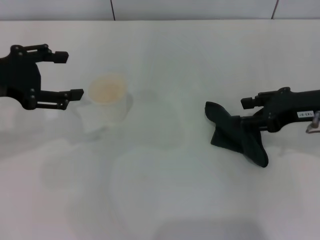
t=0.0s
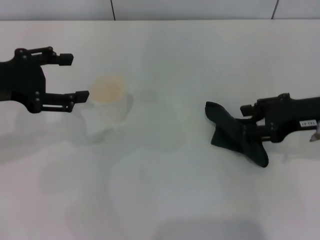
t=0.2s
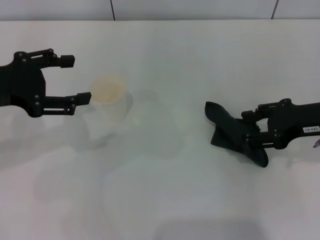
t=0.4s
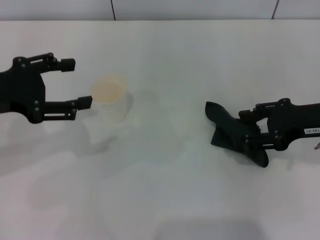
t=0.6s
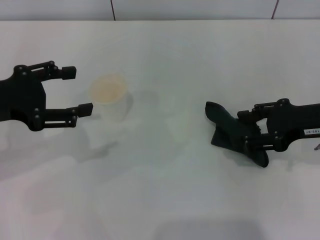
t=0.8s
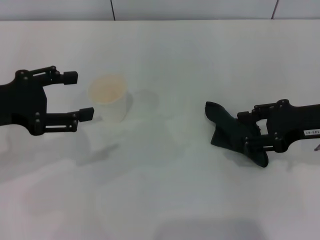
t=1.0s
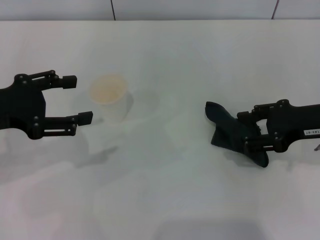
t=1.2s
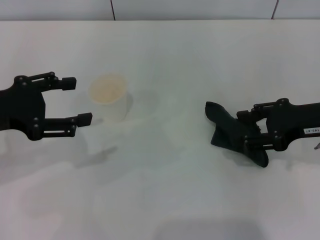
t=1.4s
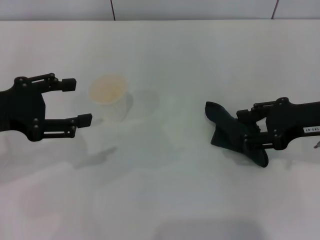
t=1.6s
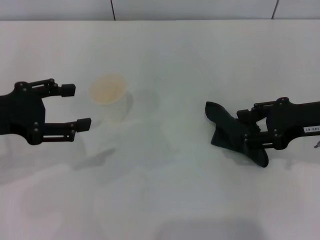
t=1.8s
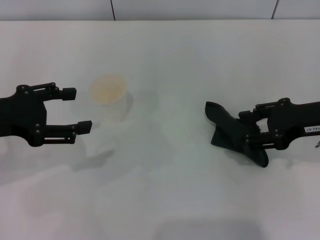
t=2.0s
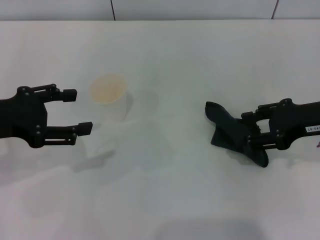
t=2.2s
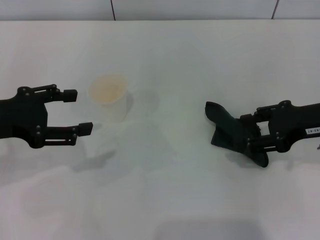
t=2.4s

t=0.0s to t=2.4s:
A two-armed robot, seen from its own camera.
t=0.0s to t=2.4s: The grippers stay close to where they were, moving slightly.

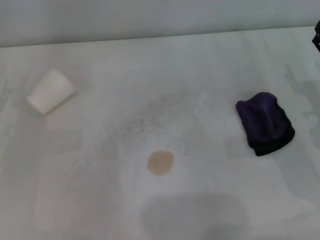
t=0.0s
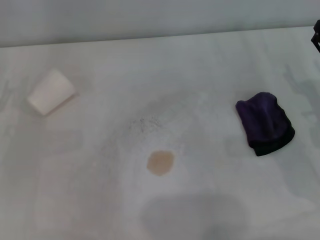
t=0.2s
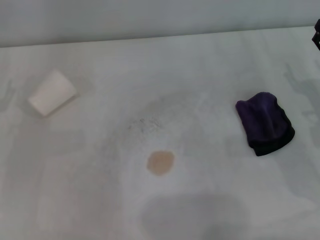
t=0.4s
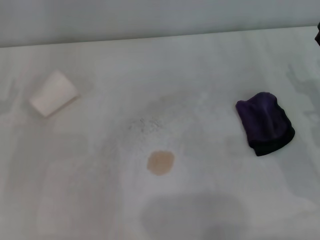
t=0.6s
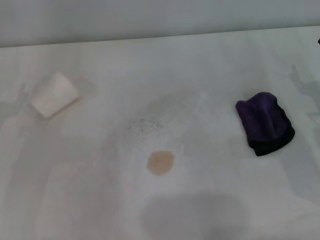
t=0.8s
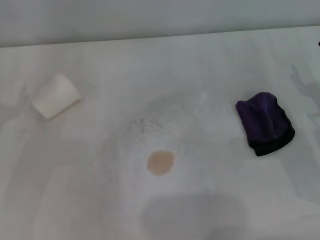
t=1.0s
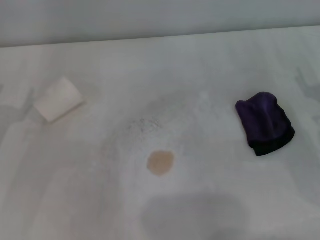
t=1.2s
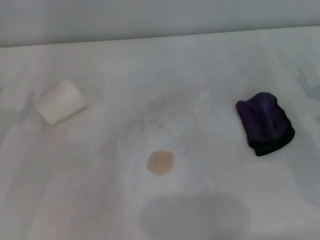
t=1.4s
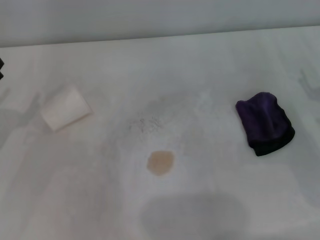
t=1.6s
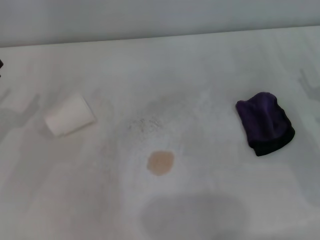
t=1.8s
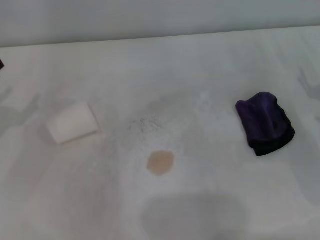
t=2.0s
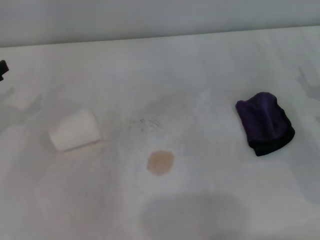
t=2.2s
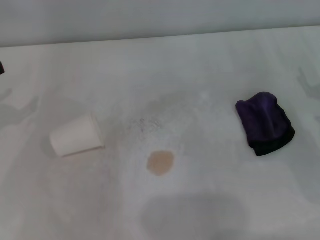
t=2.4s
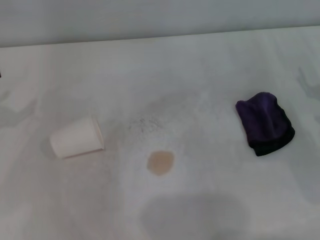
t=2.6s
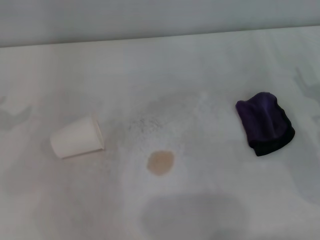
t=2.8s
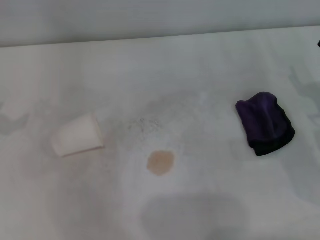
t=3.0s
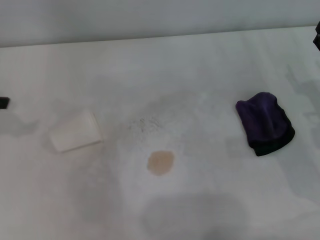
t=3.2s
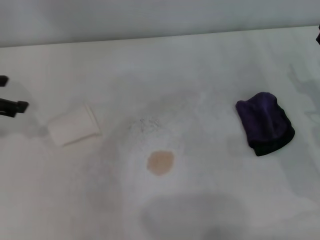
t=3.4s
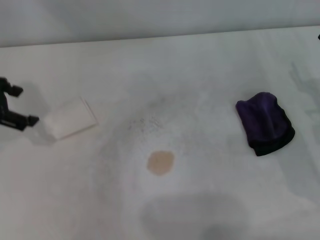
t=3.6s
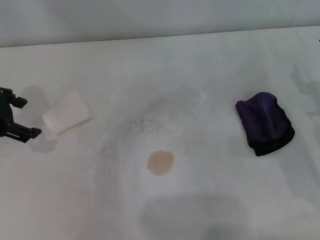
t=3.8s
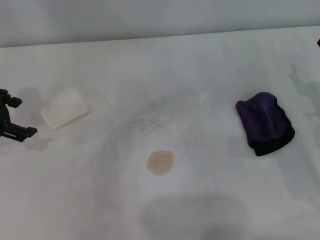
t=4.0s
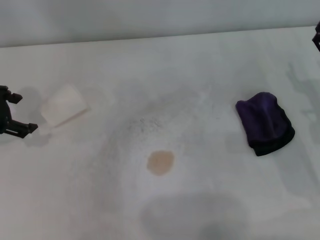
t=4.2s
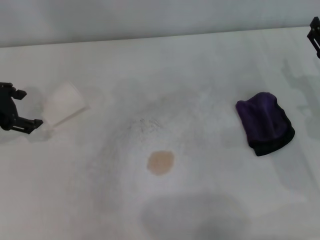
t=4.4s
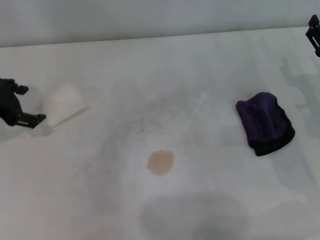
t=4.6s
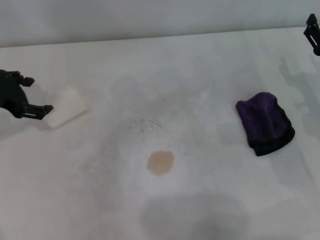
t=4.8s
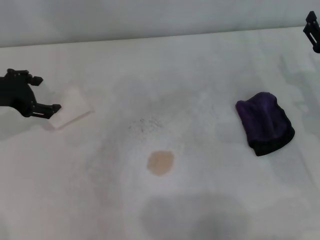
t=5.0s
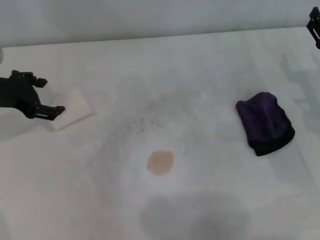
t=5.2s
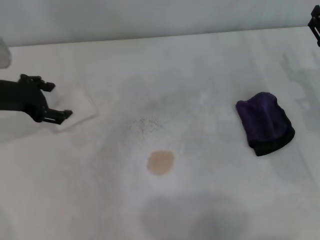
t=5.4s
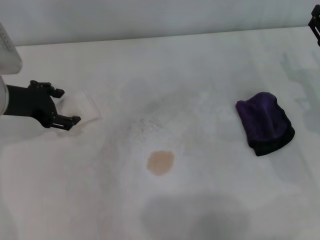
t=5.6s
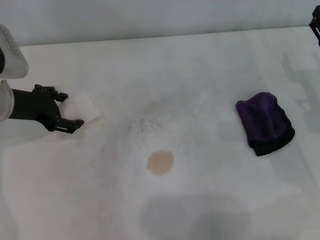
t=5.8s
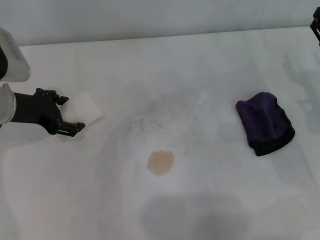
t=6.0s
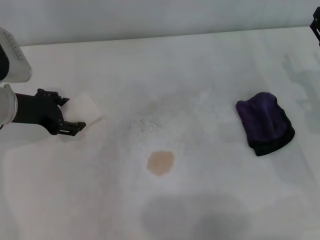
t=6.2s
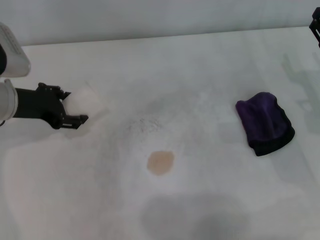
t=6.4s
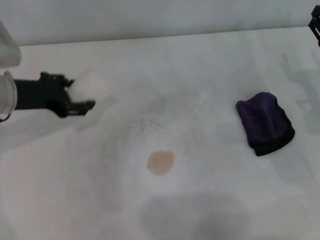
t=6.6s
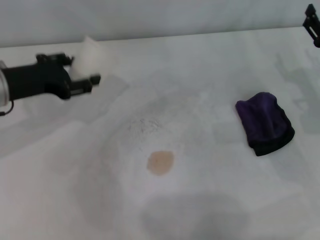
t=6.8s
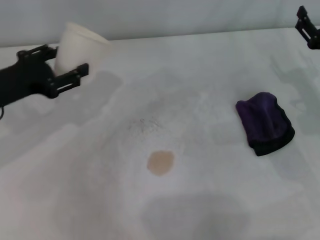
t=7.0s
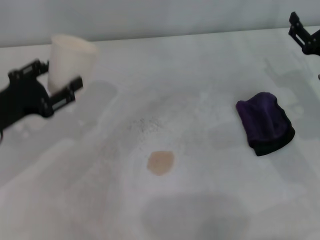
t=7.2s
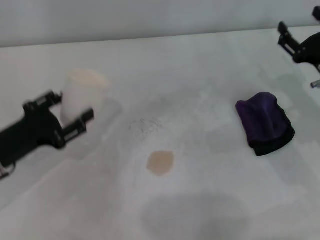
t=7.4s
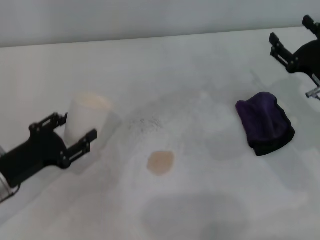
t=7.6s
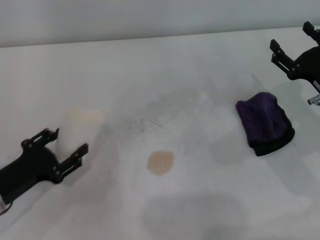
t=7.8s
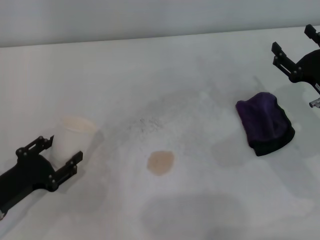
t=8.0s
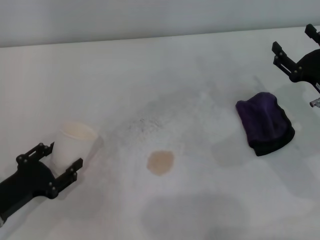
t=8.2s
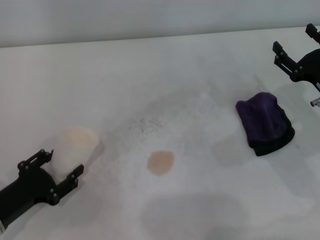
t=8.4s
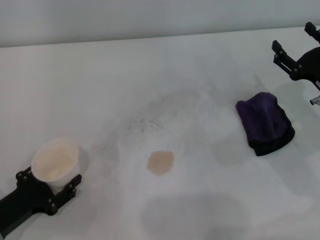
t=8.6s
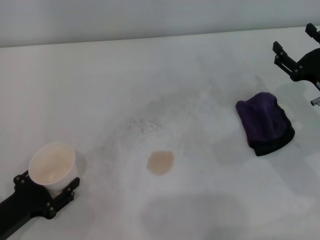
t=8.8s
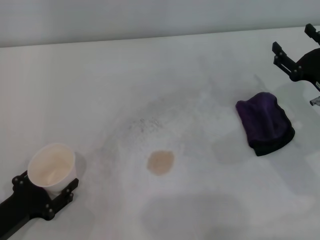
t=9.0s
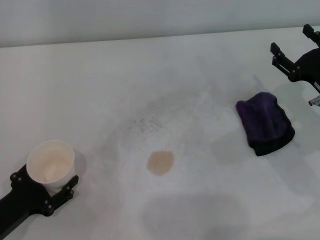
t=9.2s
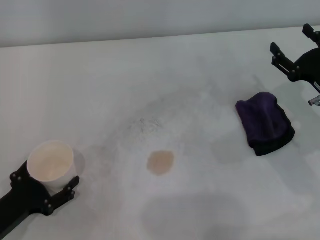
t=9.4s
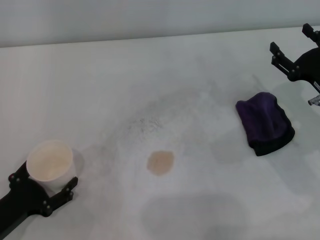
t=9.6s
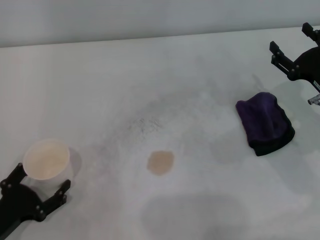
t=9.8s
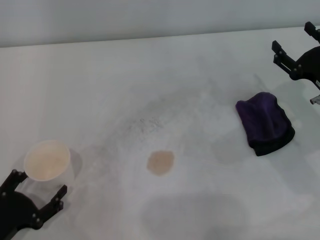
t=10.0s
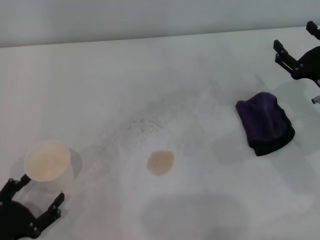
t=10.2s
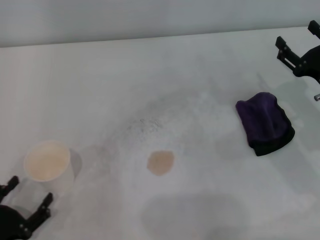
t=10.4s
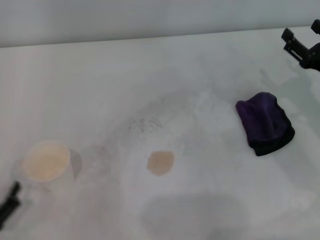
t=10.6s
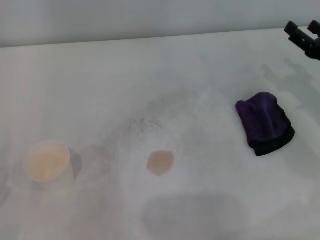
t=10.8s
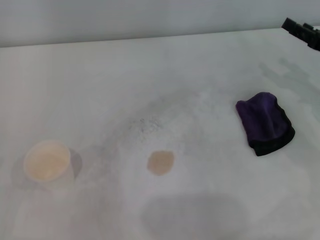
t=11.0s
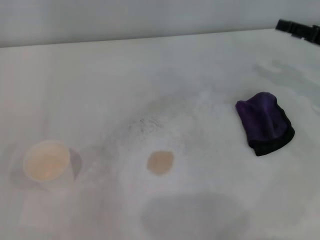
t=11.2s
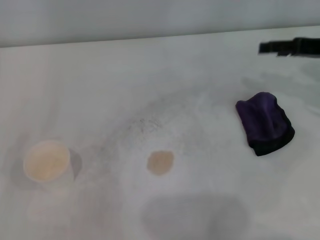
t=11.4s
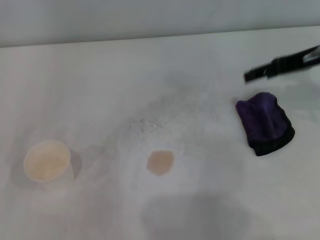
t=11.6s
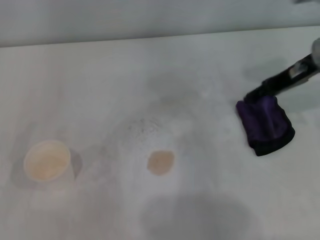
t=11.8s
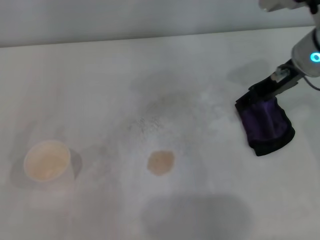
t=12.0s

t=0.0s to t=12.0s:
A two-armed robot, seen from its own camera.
Step, t=0.0s to t=6.0s: Grasp the paper cup with the left gripper.
Step, t=6.2s to t=9.4s: Stand the paper cup upright with the left gripper.
t=3.0s to t=4.4s: The left gripper shifts about 10 cm to the right.
t=4.4s to t=6.0s: The left gripper ends up approximately 5 cm from where it was.
t=6.0s to t=7.6s: The left gripper goes some 15 cm backward and downward, and closes.
t=7.6s to t=9.0s: The left gripper shifts approximately 5 cm backward.
t=9.0s to t=10.4s: The left gripper moves backward, about 5 cm, and opens up.
t=10.4s to t=12.0s: The right gripper goes roughly 15 cm upward, to the left and forward; the left gripper shifts some 10 cm upward, to the left and forward.

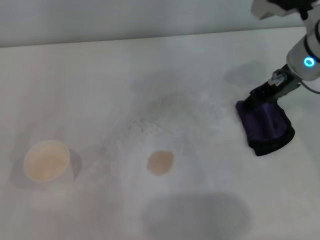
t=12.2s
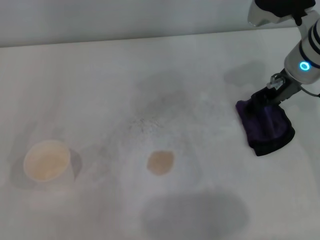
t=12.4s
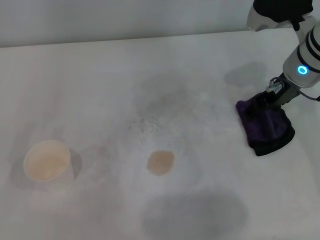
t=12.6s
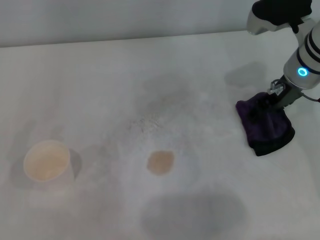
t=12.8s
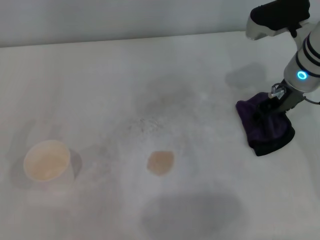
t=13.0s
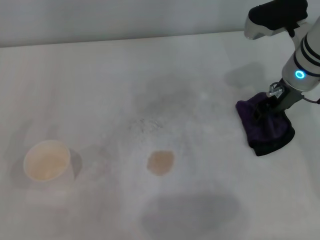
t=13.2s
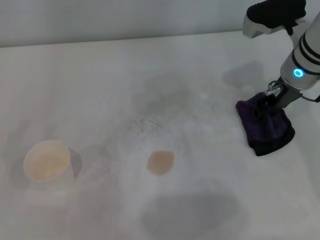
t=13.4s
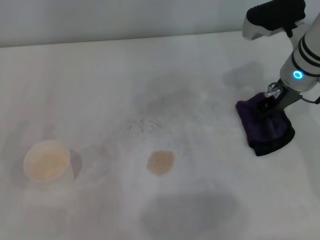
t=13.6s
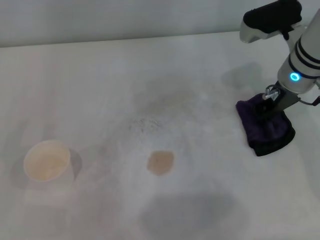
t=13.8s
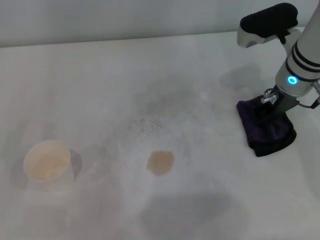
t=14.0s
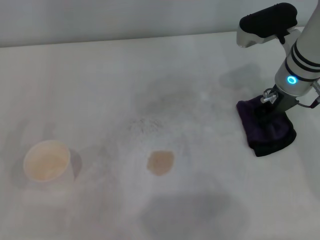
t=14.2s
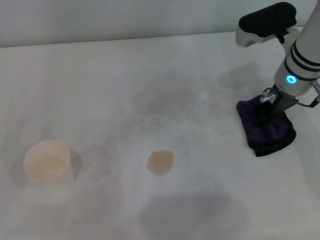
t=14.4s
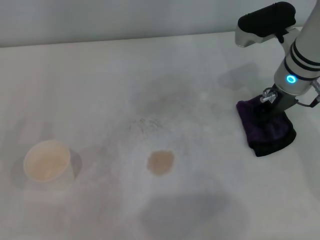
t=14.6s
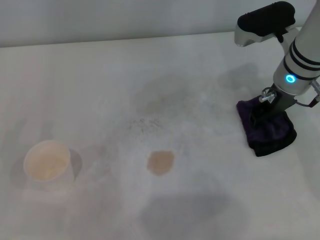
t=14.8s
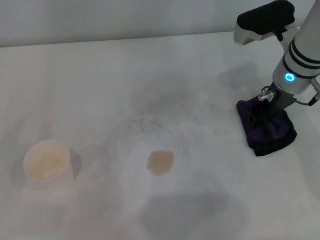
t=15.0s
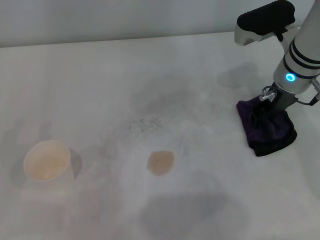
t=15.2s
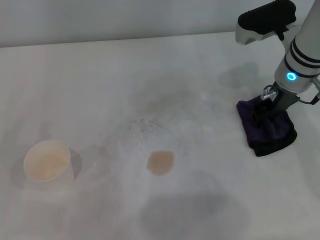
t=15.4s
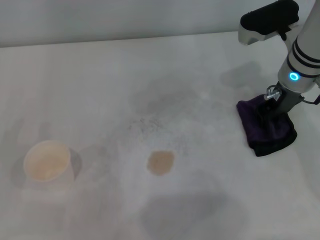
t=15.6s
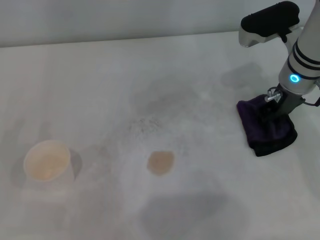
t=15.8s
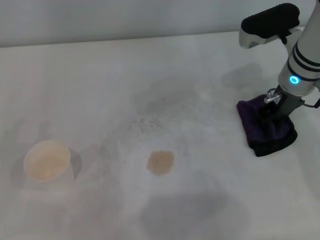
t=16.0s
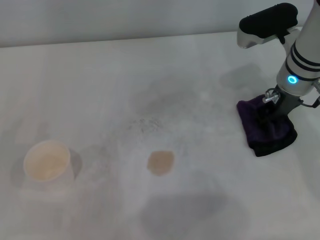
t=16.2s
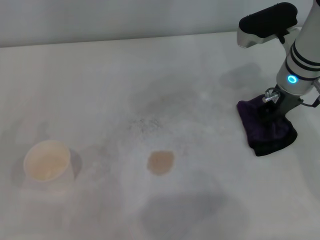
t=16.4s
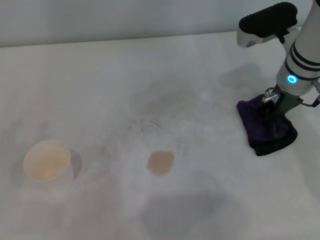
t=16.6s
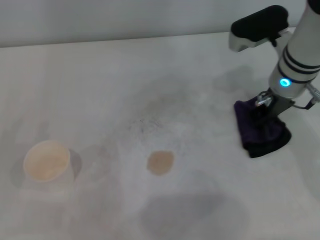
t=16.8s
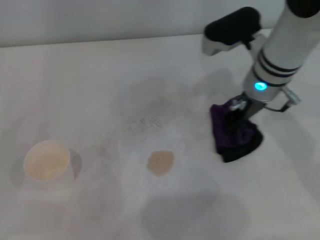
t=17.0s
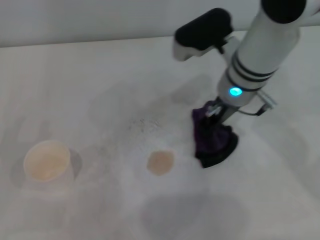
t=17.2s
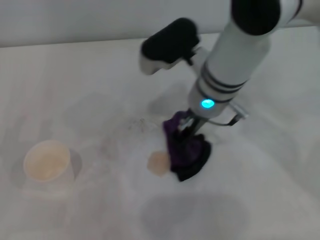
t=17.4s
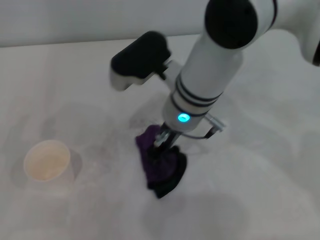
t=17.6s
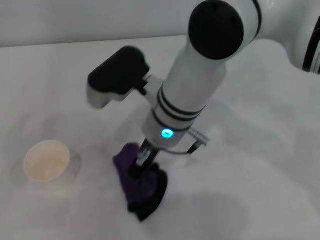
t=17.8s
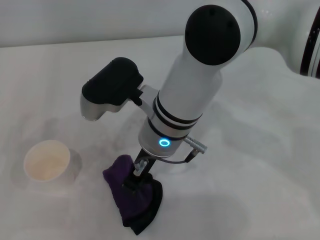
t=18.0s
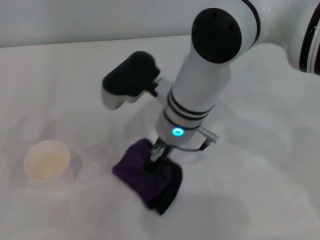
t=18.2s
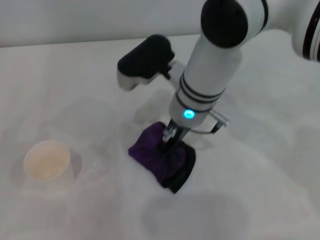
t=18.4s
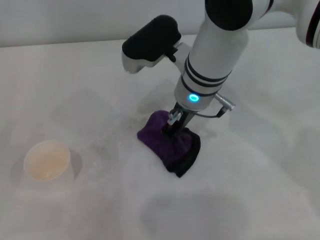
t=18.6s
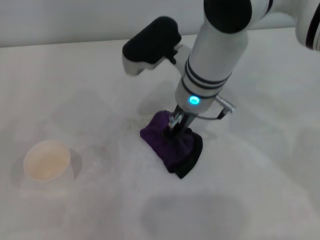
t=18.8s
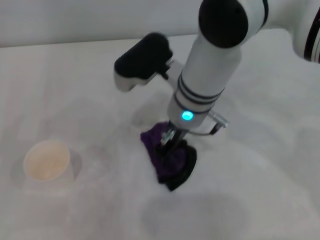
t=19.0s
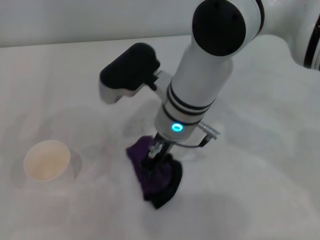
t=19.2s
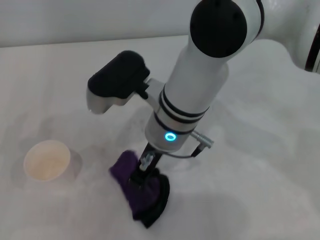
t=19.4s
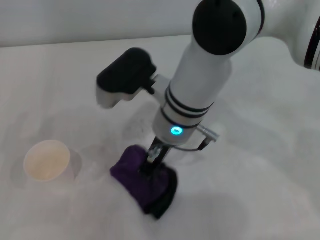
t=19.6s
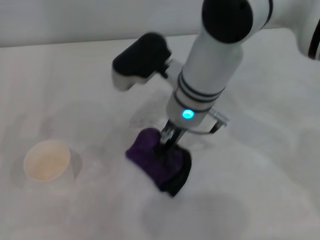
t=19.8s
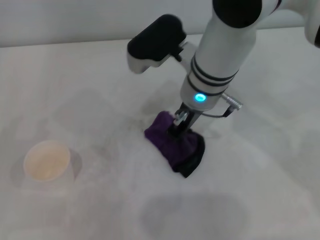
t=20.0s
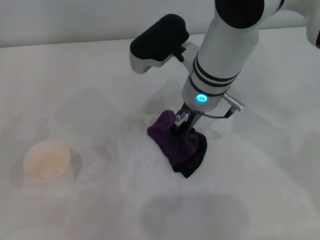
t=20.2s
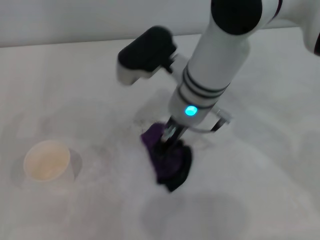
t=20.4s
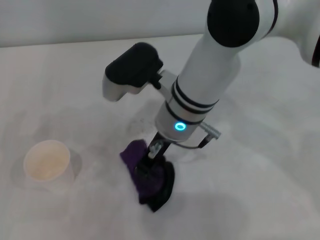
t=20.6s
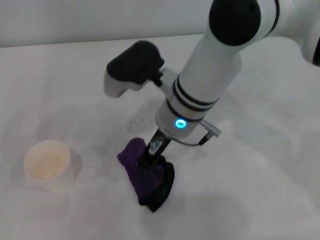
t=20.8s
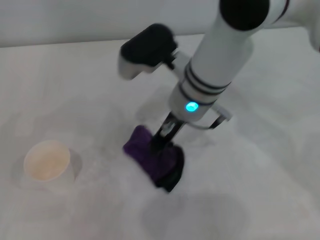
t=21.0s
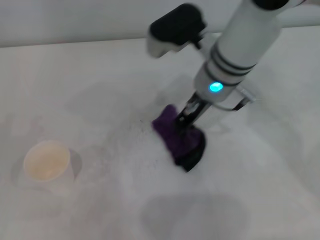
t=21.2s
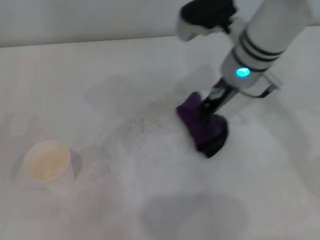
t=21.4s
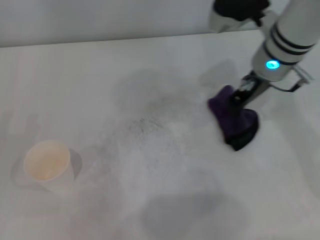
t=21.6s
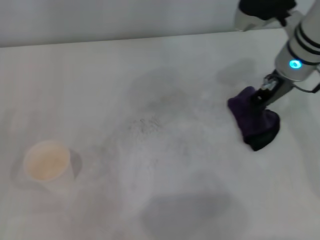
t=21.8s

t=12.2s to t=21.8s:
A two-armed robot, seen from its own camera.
Step, t=12.2s to t=16.4s: Grasp the rag with the right gripper.
Step, t=16.8s to t=21.6s: Wipe the stains off the table with the right gripper.
t=12.2s to t=13.8s: The right gripper closes its fingers.
t=13.8s to t=15.4s: Both grippers stay about where they are.
t=15.4s to t=17.0s: The right gripper closes.
t=17.0s to t=18.6s: The right gripper goes approximately 10 cm to the left.
t=20.2s to t=21.8s: The right gripper goes roughly 15 cm to the right.
